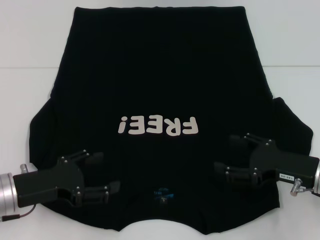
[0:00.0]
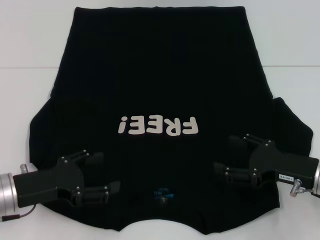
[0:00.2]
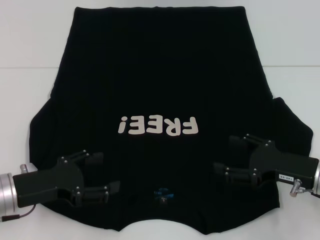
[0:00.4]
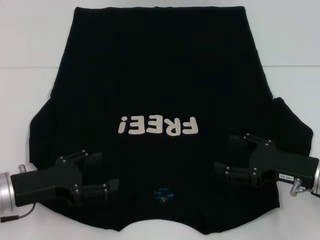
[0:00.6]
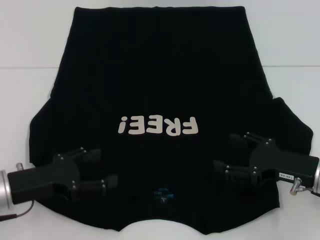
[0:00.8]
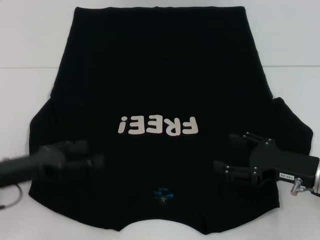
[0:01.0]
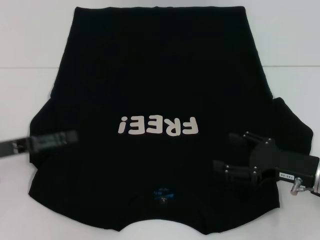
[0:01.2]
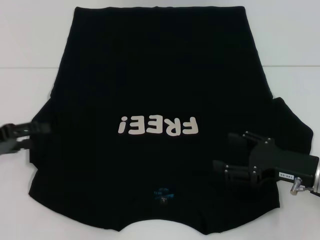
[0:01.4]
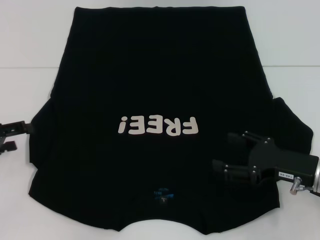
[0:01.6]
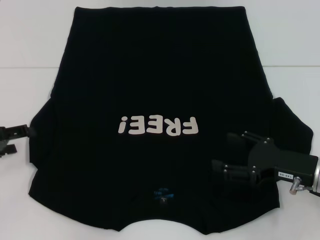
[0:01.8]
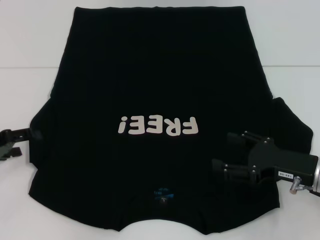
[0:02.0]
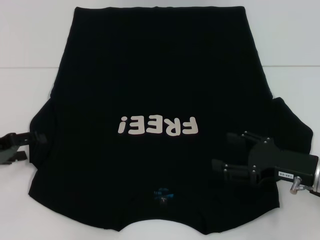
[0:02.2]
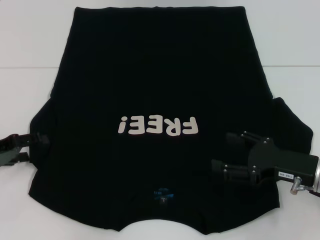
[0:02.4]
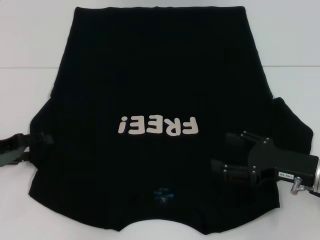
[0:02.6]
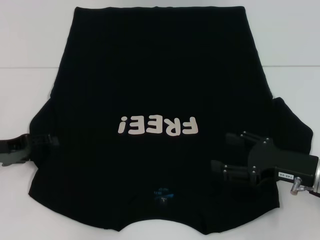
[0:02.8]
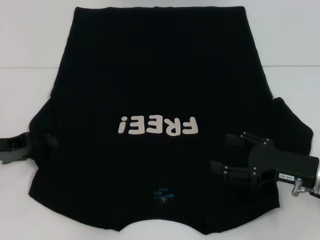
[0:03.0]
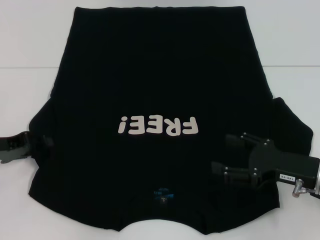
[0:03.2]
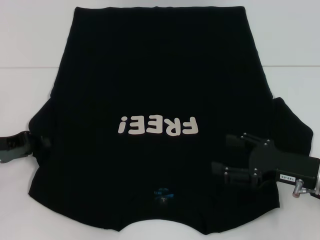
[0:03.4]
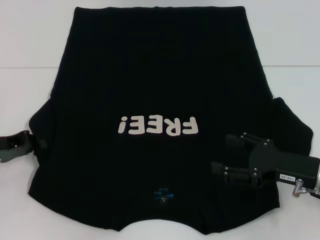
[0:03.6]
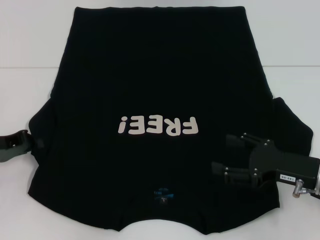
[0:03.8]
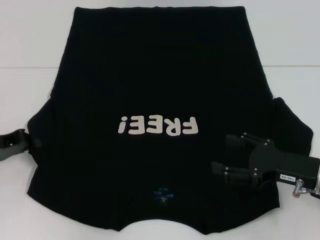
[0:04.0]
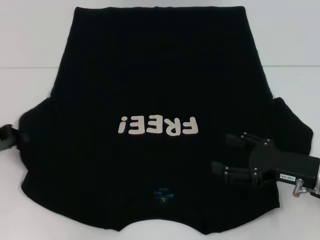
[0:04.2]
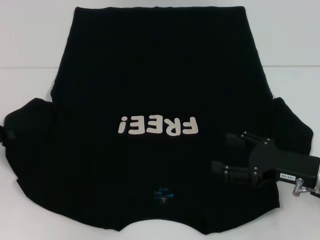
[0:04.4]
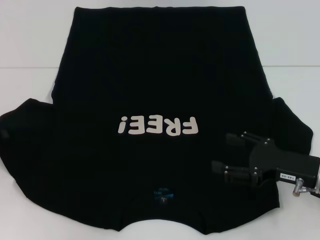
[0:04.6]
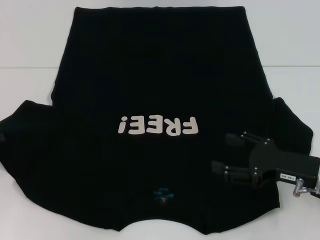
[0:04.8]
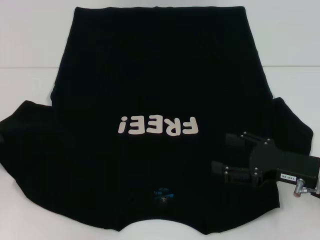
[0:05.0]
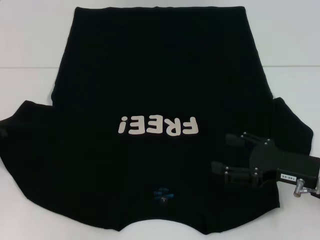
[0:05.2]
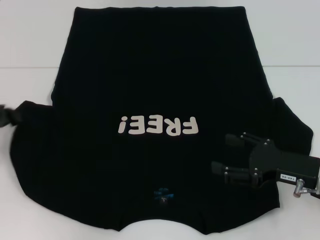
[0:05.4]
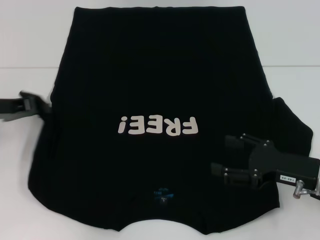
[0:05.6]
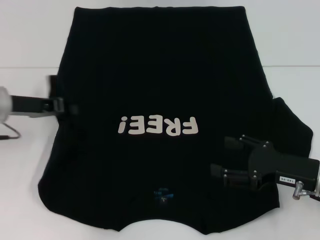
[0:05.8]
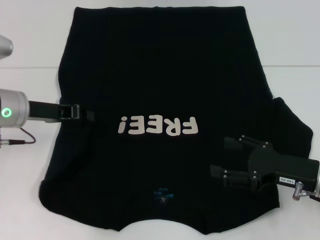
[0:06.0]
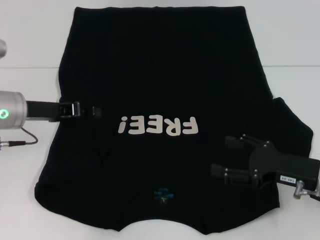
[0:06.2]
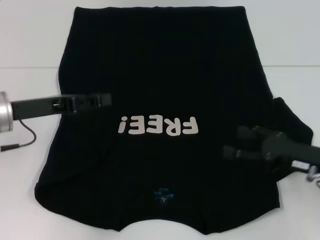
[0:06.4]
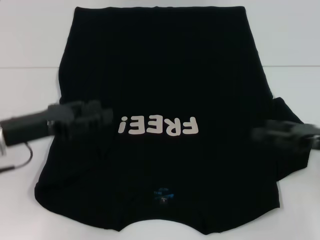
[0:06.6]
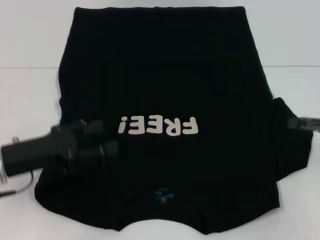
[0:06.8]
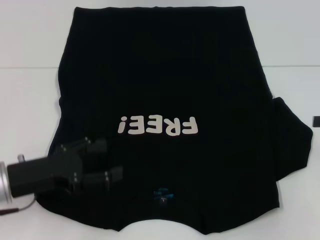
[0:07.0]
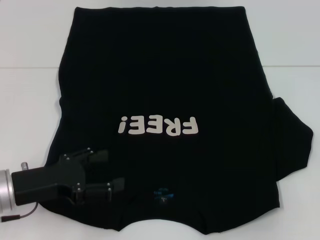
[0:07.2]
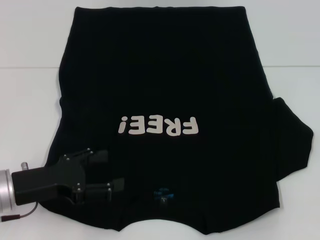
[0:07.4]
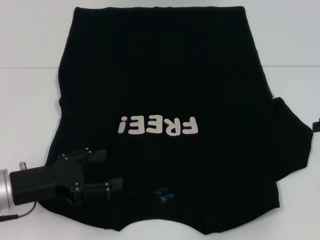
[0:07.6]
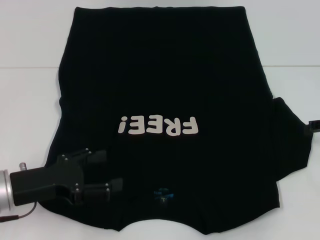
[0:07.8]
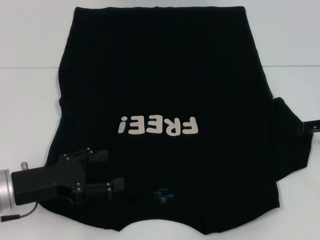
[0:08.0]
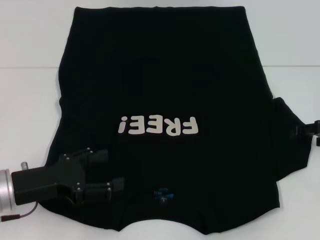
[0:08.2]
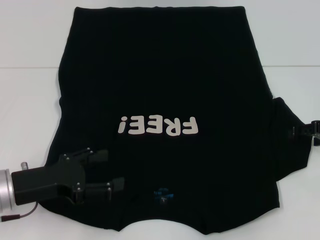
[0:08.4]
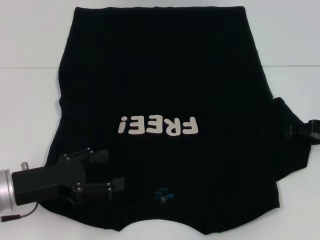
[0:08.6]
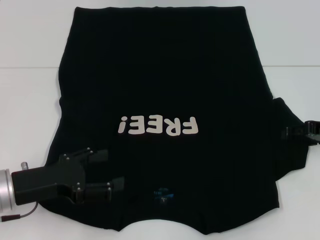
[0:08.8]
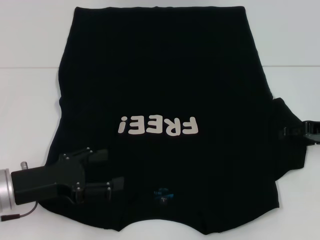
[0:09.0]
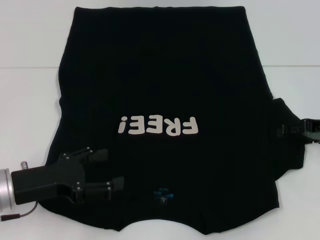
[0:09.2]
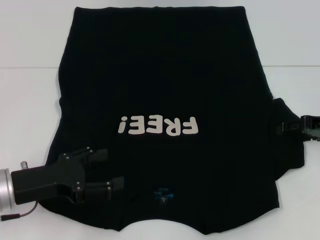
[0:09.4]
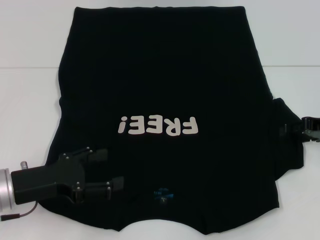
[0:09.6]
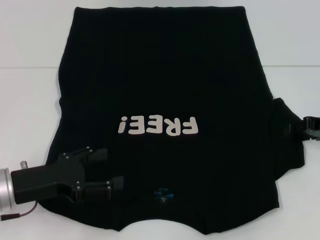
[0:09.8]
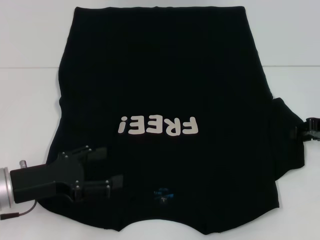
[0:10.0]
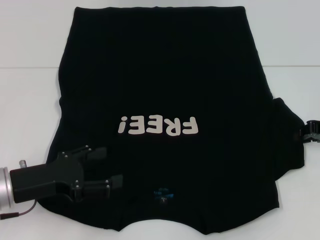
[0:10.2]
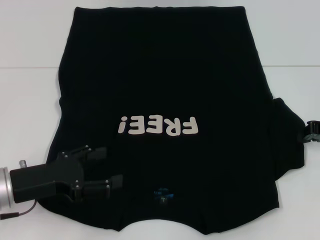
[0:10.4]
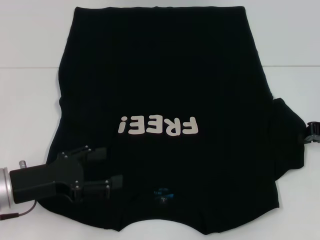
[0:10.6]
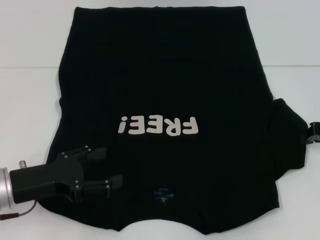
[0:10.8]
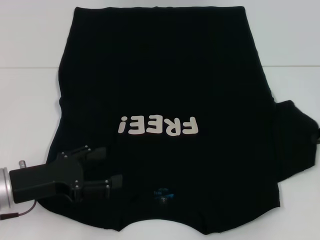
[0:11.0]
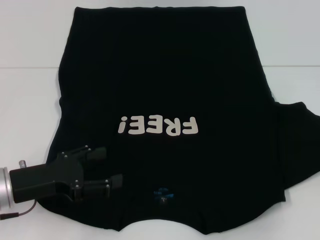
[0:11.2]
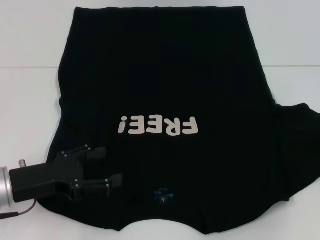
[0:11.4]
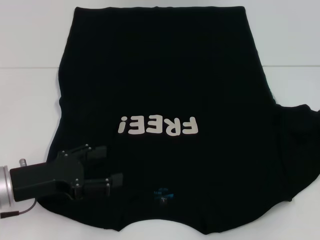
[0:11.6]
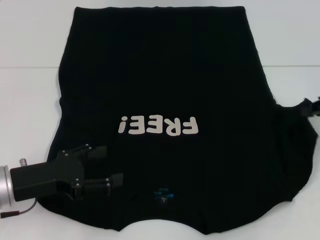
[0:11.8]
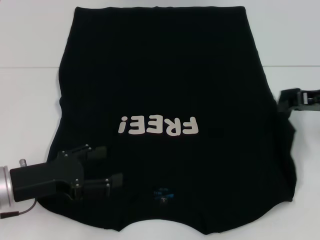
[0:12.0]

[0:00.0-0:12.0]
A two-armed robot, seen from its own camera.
Step, 0.0 to 6.2 s: Fold the bottom left sleeve with your left hand.
0.0 to 1.6 s: The left gripper moves to the left, roughly 10 cm.
1.6 to 3.0 s: The grippers make only small movements.
3.0 to 4.4 s: The left gripper closes up.
4.4 to 6.0 s: The left gripper shifts some 10 cm to the right.
6.0 to 7.6 s: The right gripper moves to the right, upward and forward, some 15 cm. The left gripper heads backward and downward, covering roughly 15 cm, and opens its fingers.
7.6 to 9.0 s: The right gripper shifts roughly 5 cm to the left.
10.4 to 12.0 s: The right gripper goes to the right and returns, about 5 cm each way.

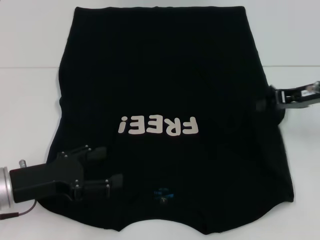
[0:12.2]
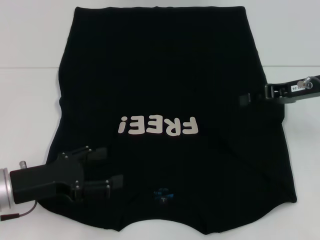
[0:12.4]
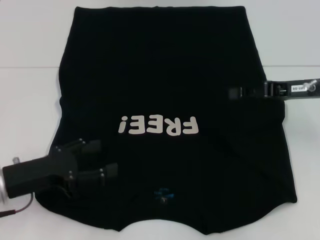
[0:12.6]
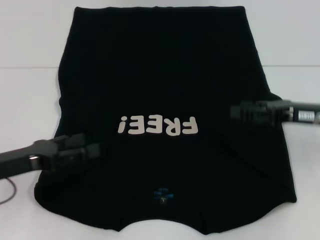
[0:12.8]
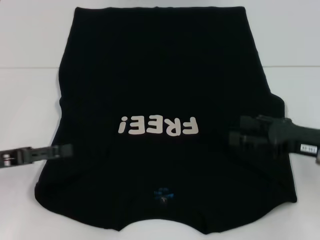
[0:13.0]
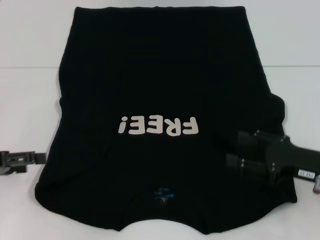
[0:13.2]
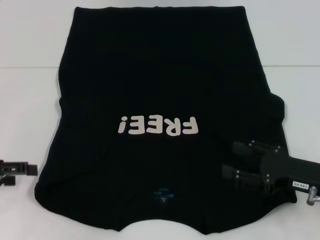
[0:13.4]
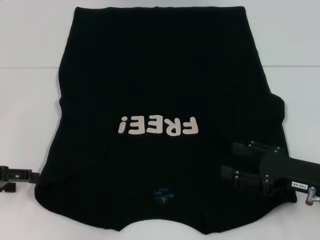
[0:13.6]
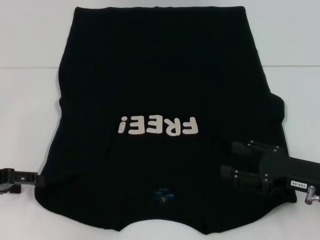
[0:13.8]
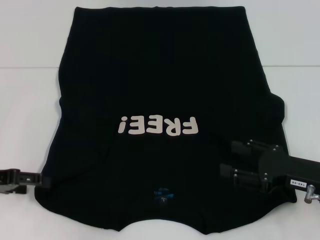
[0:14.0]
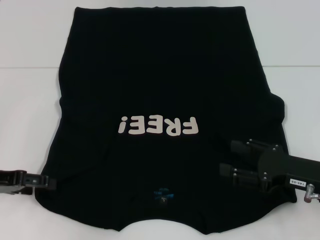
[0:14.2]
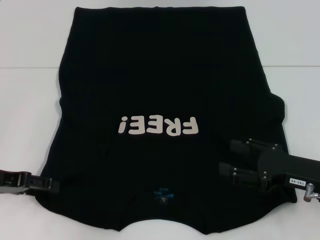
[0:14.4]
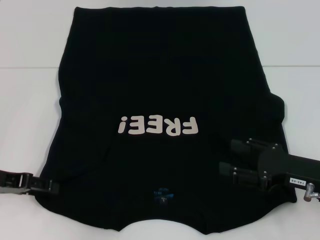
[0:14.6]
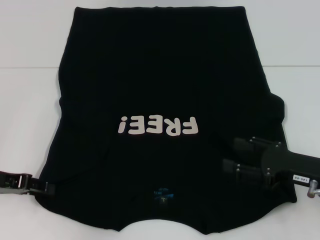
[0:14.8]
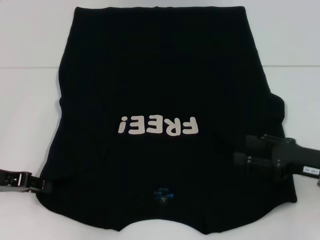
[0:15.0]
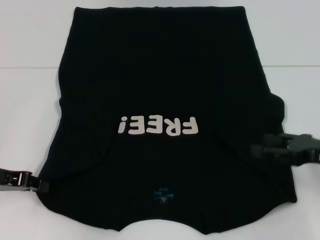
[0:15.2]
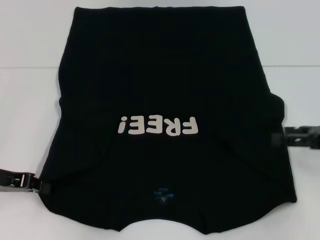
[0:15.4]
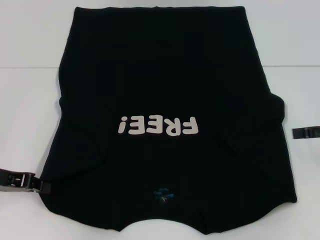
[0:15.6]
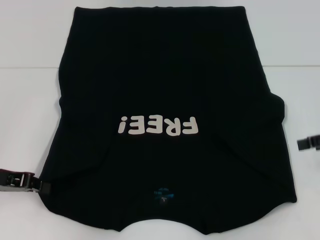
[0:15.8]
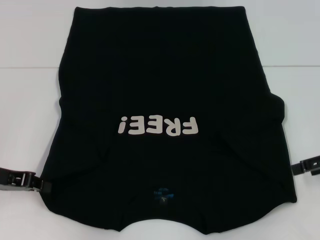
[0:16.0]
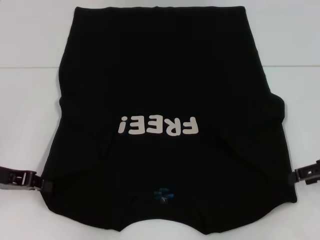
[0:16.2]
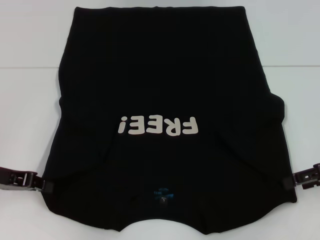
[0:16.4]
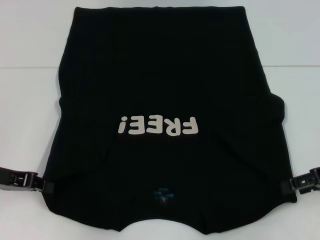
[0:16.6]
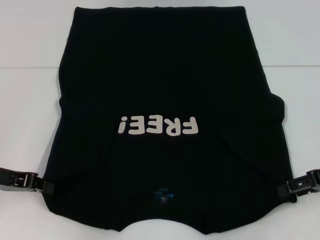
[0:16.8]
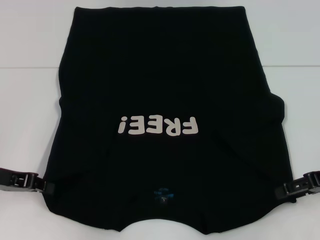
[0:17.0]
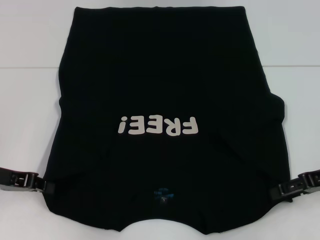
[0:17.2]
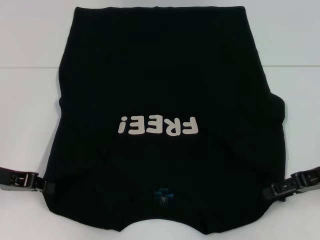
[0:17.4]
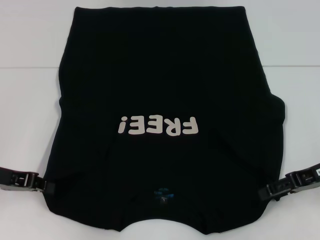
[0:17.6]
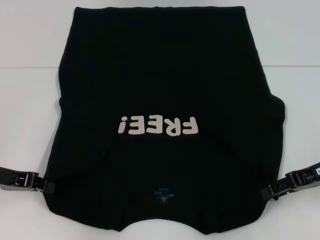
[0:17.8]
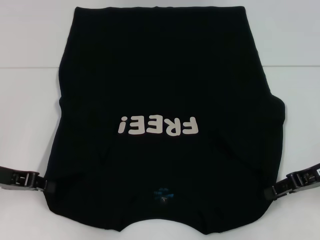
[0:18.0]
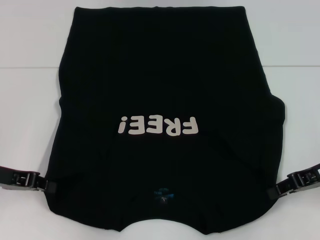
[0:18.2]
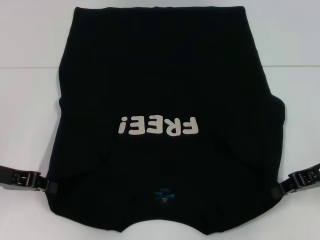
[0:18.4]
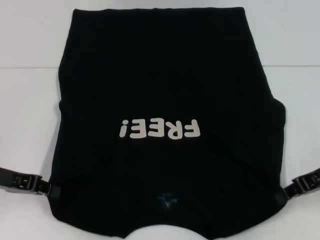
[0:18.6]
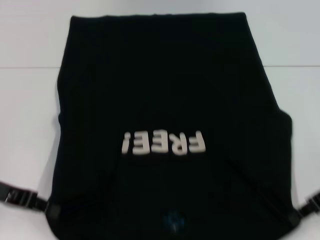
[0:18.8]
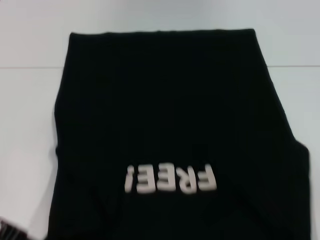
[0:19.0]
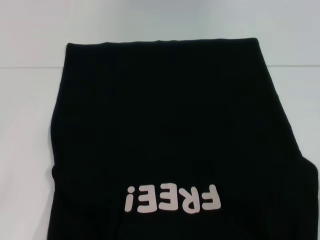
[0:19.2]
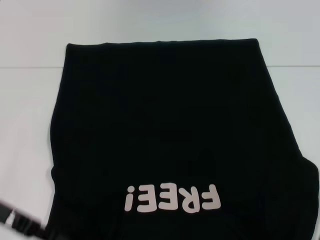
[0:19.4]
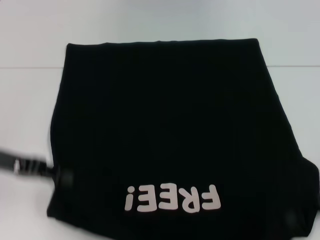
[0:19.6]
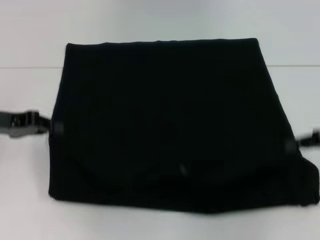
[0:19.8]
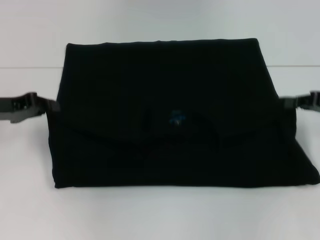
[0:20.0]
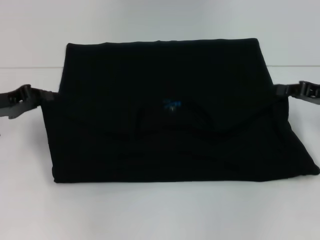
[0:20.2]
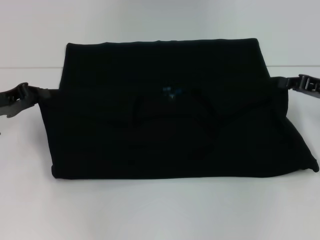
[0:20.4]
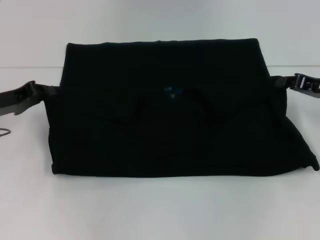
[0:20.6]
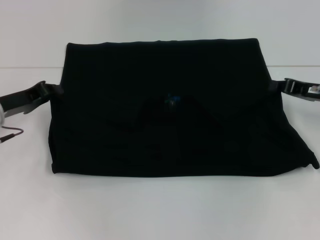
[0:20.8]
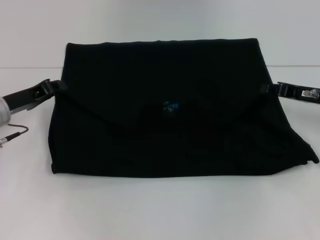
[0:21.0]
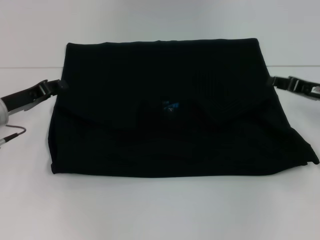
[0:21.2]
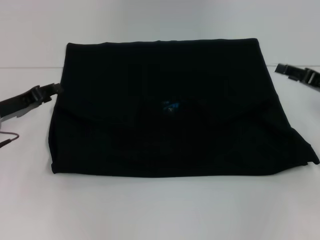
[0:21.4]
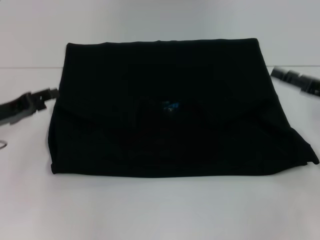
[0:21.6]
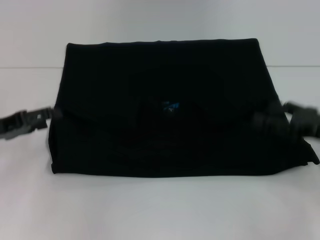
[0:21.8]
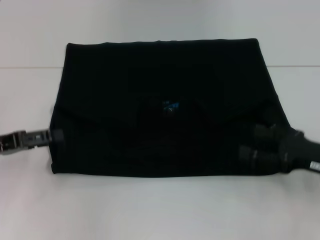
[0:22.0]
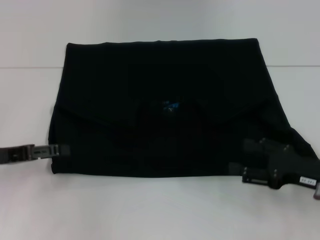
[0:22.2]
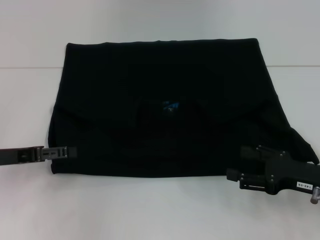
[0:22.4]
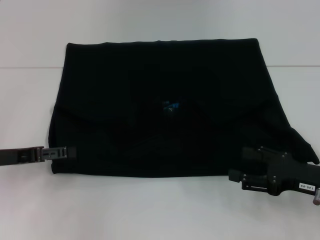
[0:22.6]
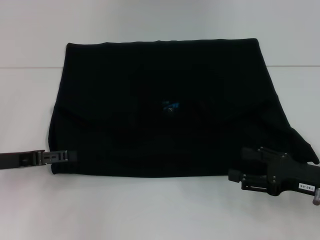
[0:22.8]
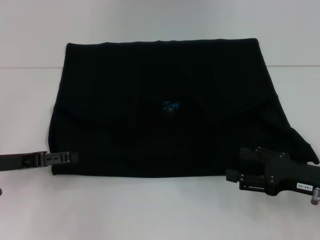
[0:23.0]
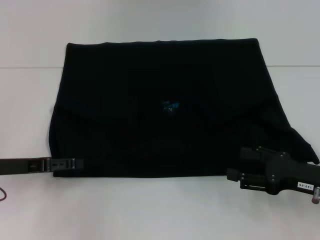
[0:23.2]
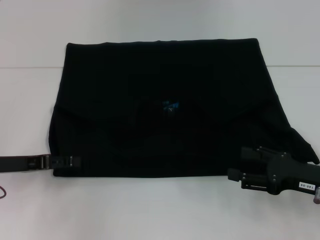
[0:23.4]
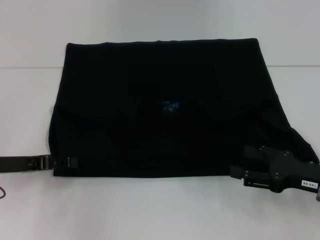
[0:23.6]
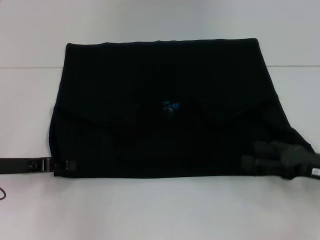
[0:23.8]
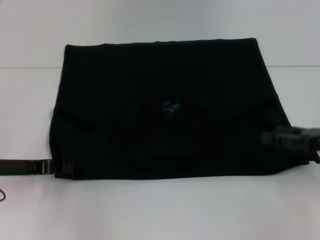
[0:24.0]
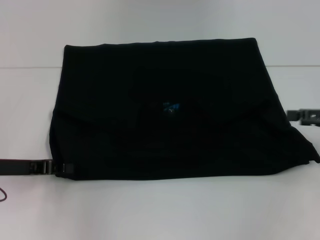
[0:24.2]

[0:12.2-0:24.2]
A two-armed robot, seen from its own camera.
Step, 12.8 to 15.6 s: Grab the bottom left corner with your left hand.
Step, 15.8 to 18.4 s: Grab the bottom right corner with your right hand.
Step, 18.6 to 21.0 s: Fold the clothes with your left hand.
Step, 18.6 to 21.0 s: Fold the clothes with your right hand.
12.2 to 13.8 s: The left gripper moves to the left, some 10 cm. Meanwhile the right gripper moves backward and downward, approximately 15 cm, and opens.
13.8 to 15.2 s: The right gripper changes place by about 5 cm, while the left gripper closes its fingers.
16.6 to 18.2 s: The right gripper closes its fingers.
18.2 to 19.8 s: The left gripper ends up roughly 5 cm from where it was; the right gripper ends up roughly 5 cm from where it was.
19.8 to 21.2 s: The left gripper travels downward by some 5 cm, while the right gripper ends up roughly 5 cm from where it was.
21.2 to 22.6 s: The left gripper goes about 5 cm backward, and opens. The right gripper shifts about 10 cm backward, and opens its fingers.
22.6 to 24.2 s: The left gripper closes up, while the right gripper travels upward, to the right and forward by about 15 cm.
